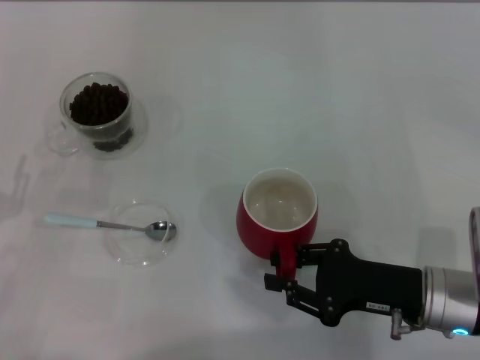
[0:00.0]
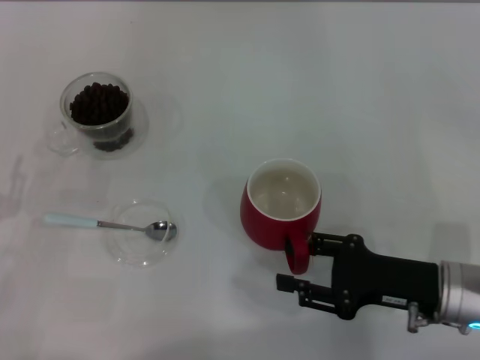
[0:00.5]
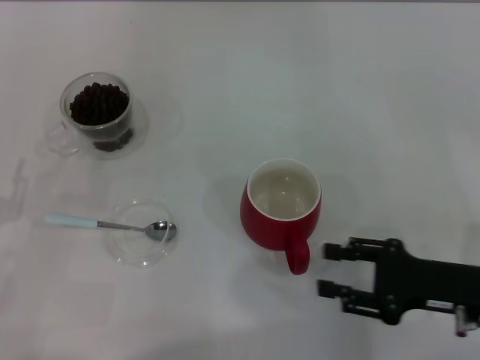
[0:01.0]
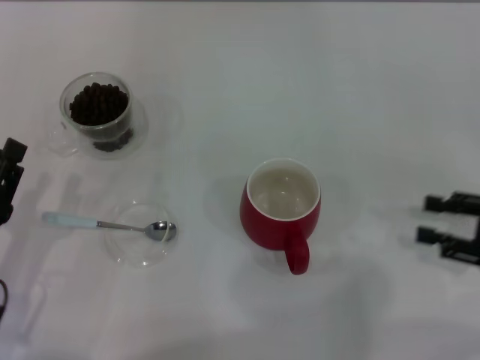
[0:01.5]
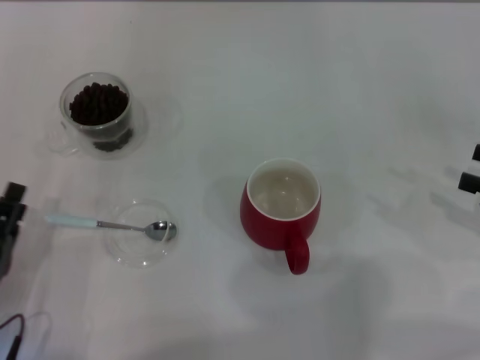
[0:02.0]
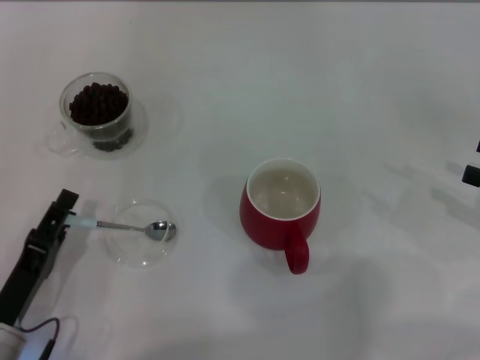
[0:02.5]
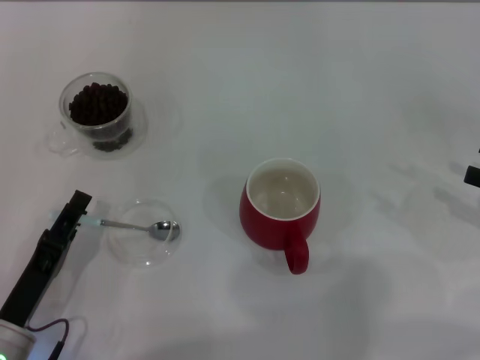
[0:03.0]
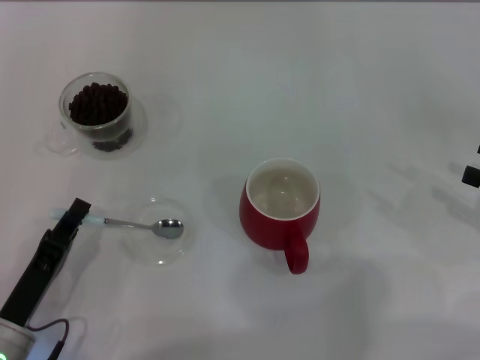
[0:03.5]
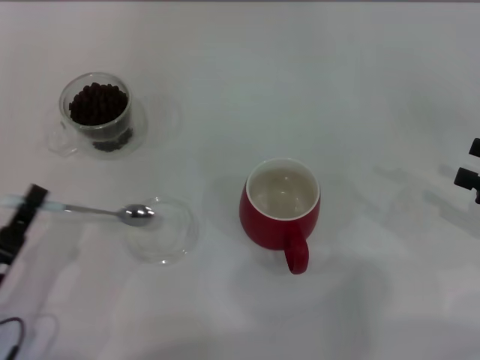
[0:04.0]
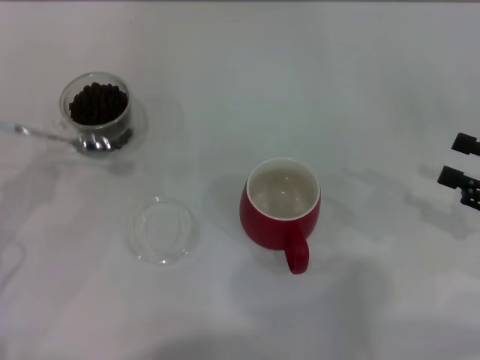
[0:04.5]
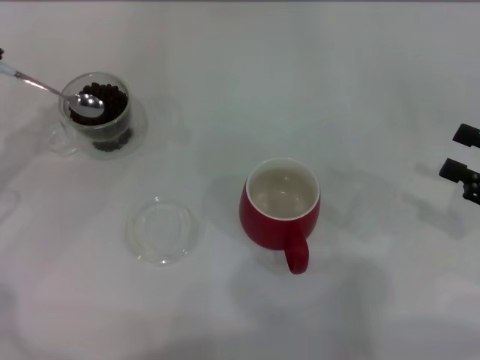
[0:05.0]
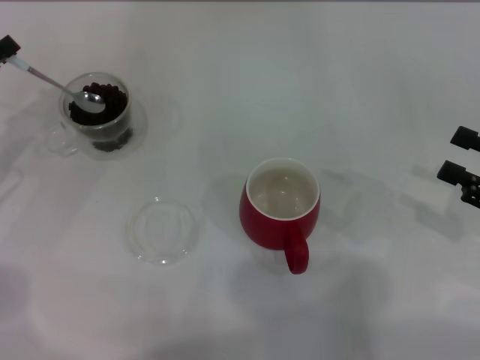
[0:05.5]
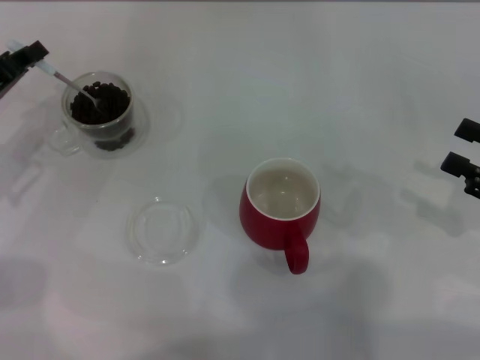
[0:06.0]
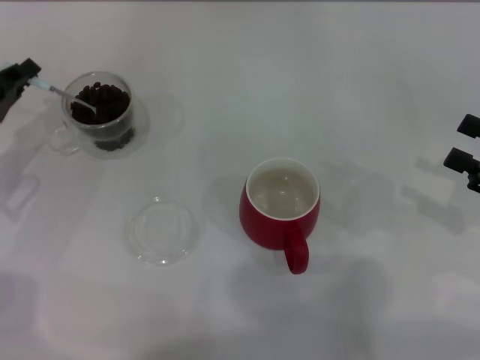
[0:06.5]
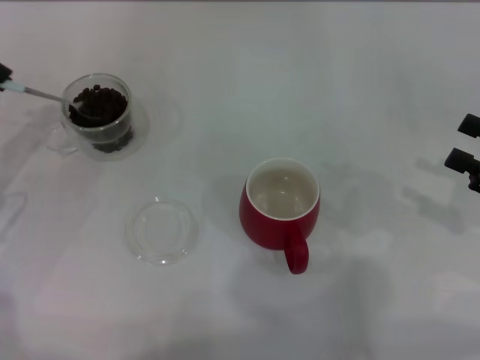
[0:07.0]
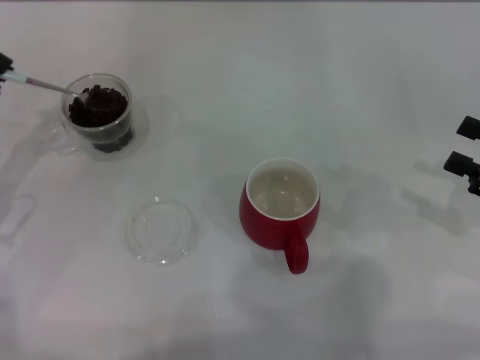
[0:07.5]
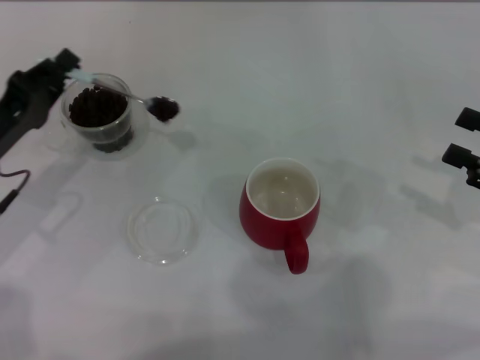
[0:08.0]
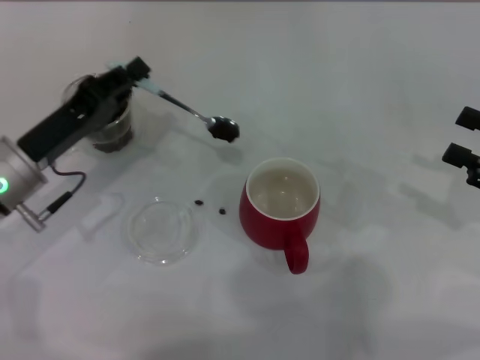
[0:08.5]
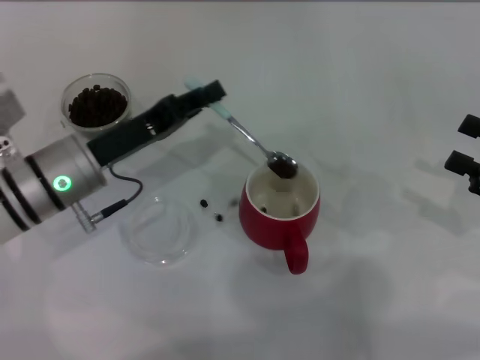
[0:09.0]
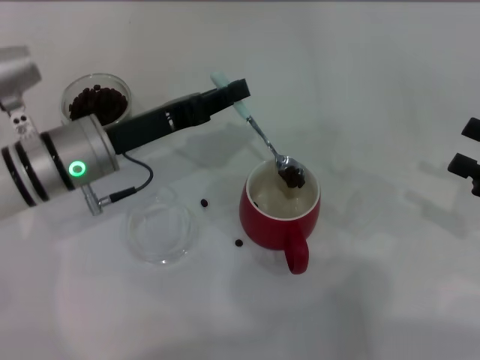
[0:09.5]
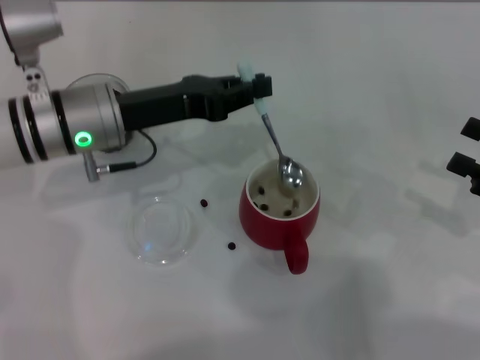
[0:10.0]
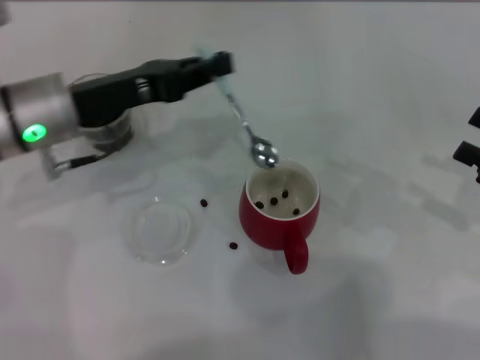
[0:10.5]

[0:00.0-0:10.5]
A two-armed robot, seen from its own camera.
Task of the whole recording: Use a blue spoon to take out the coffee beans from the glass and pour them into the red cup.
Step, 0:01.5 to 0:04.0: Pick up the spoon with the right gripper.
0:00.0 to 0:02.0: The left gripper moves to the right and backward, about 10 cm. Meanwhile the right gripper shifts roughly 20 cm to the right, and opens up.
0:02.0 to 0:04.0: The left gripper closes its fingers.
0:04.0 to 0:06.5: The left gripper goes some 20 cm forward.
0:06.5 to 0:08.5: The left gripper shifts about 10 cm to the right.
0:08.5 to 0:10.5: The left gripper travels upward by approximately 5 cm.

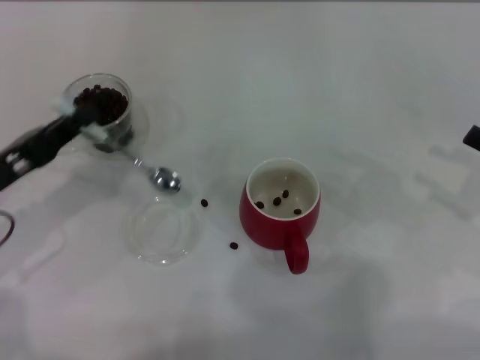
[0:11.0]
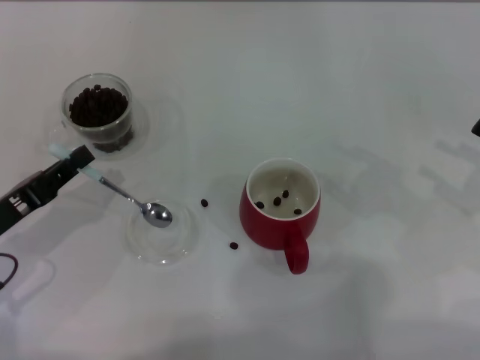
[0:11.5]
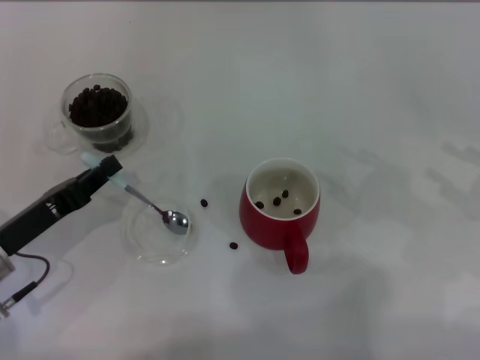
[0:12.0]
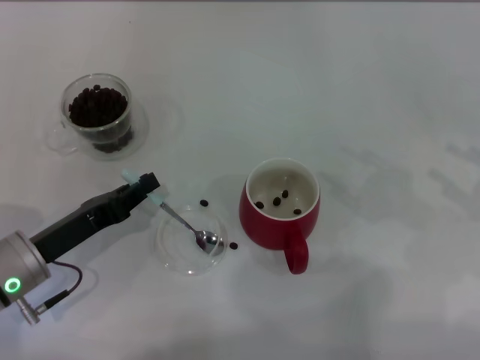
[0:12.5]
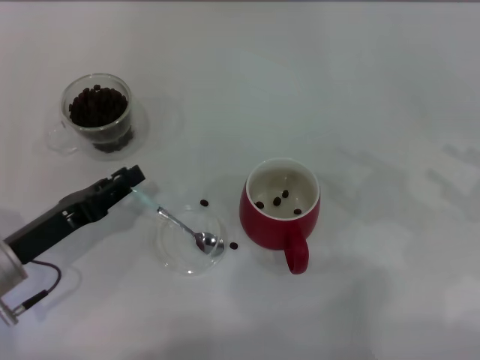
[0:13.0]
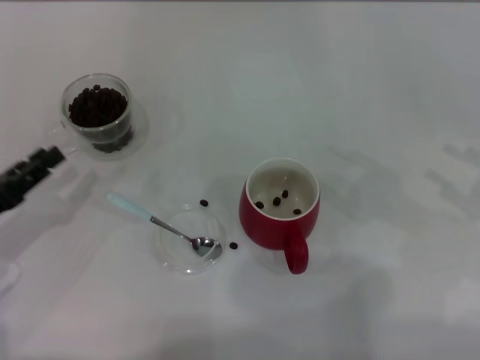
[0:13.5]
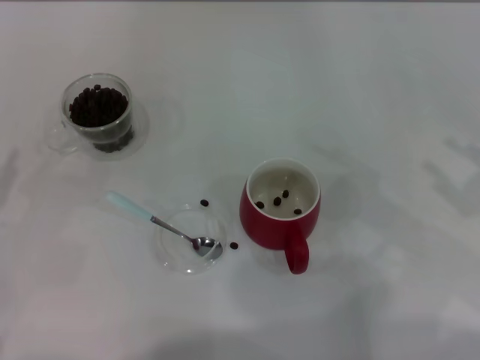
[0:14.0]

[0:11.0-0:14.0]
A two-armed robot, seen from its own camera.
Task of the whole recording: Use a blue spoon to take out the coffee beans from the glass and pour them into the red cup.
Step, 0:11.0 to 0:13.0: Place the spoon back in its original place with the right gripper.
0:11.0 to 0:12.5: The left gripper is displaced downward by some 5 cm.
0:12.5 to 0:14.0: The left gripper goes roughly 15 cm to the left and upward, and opens.

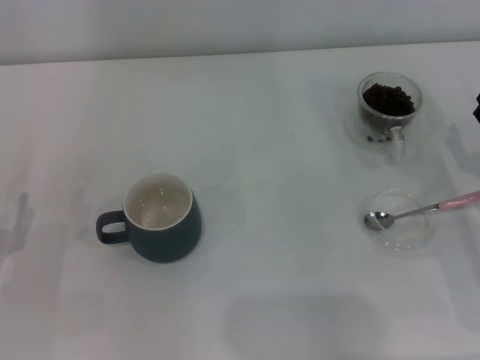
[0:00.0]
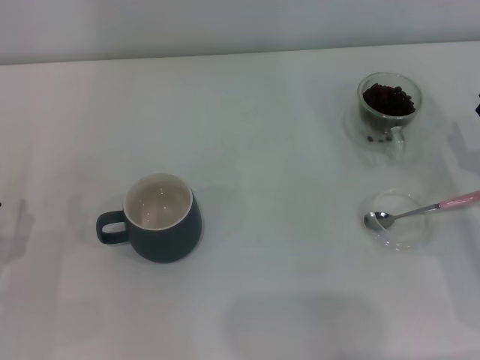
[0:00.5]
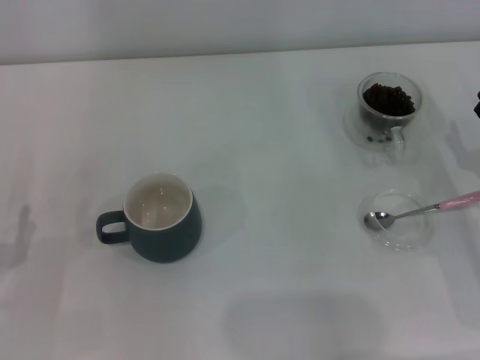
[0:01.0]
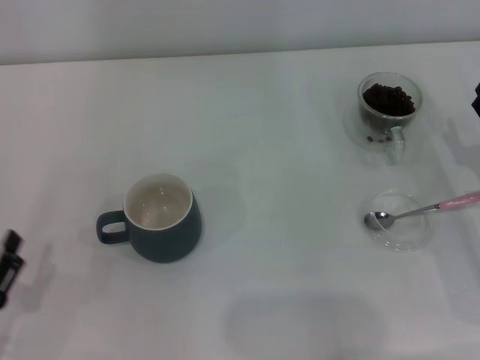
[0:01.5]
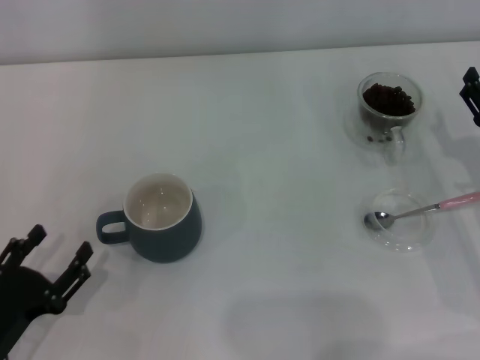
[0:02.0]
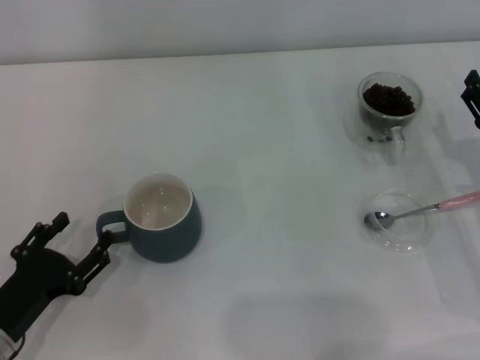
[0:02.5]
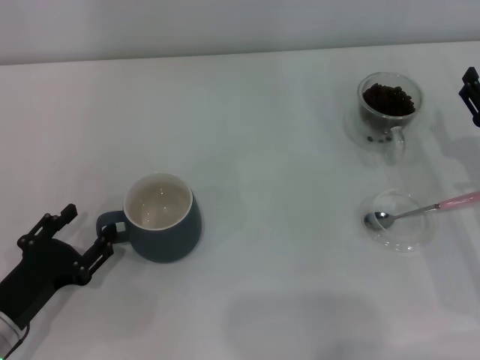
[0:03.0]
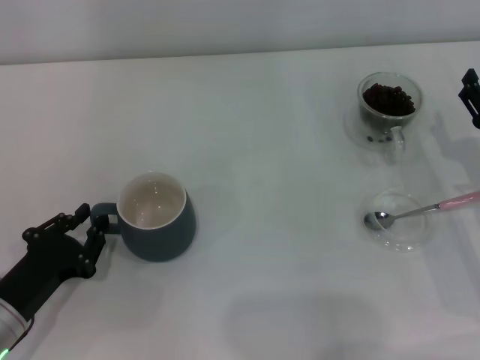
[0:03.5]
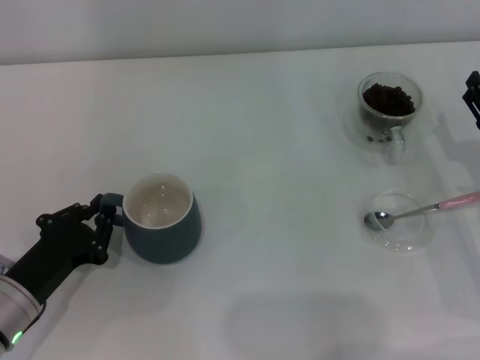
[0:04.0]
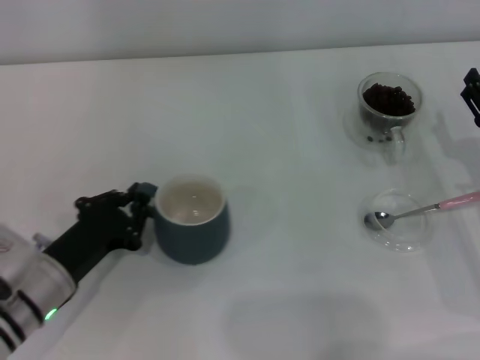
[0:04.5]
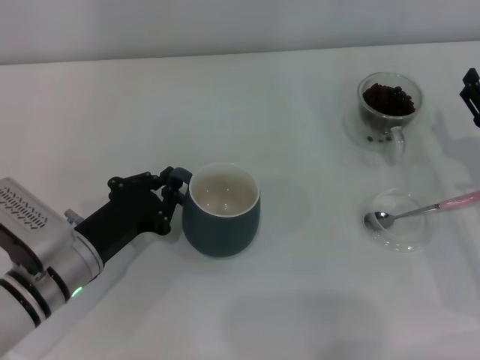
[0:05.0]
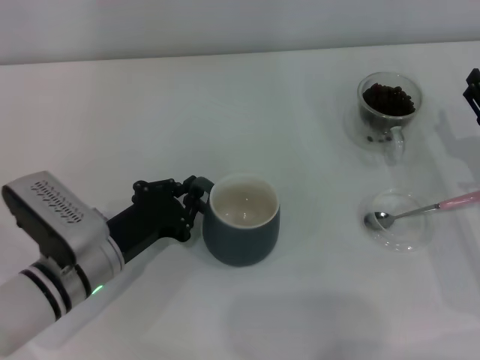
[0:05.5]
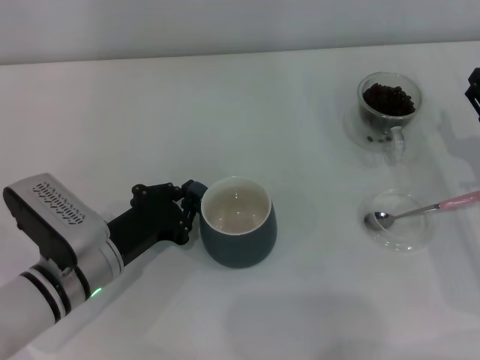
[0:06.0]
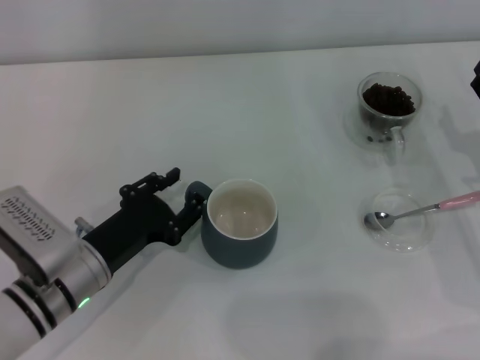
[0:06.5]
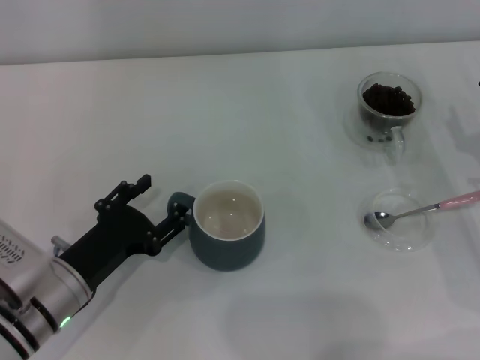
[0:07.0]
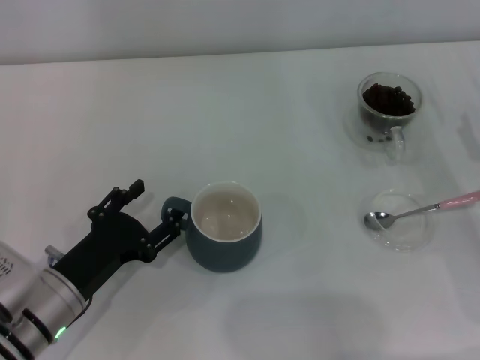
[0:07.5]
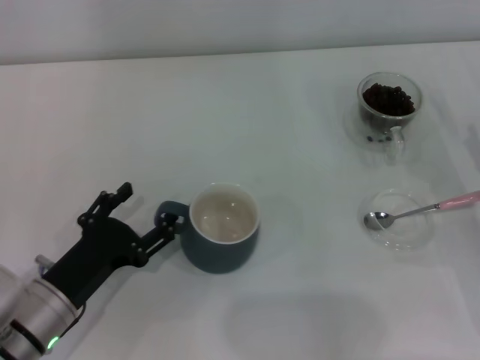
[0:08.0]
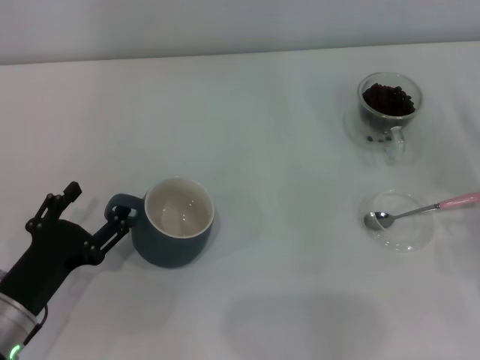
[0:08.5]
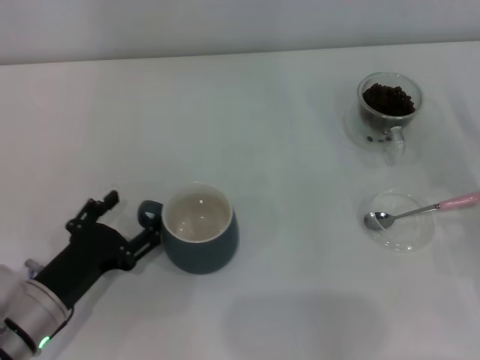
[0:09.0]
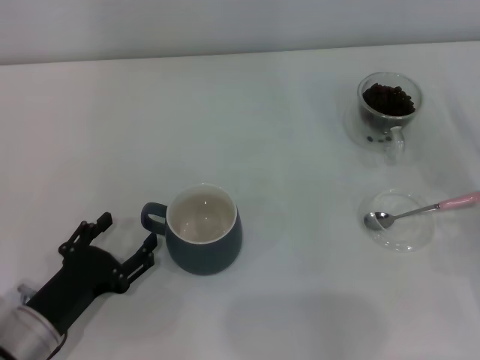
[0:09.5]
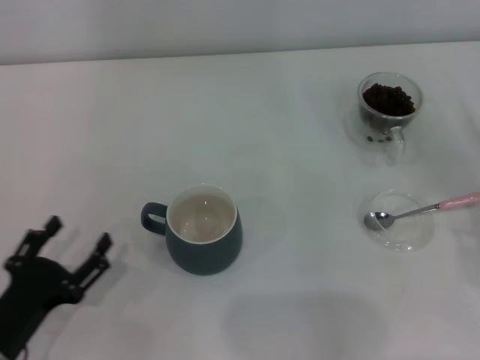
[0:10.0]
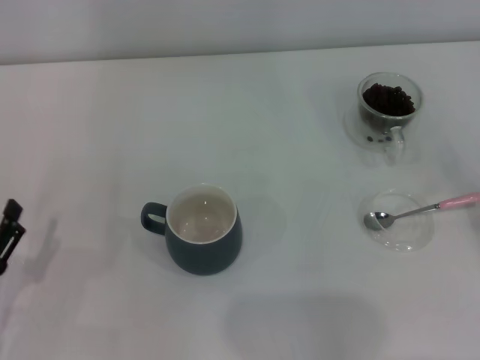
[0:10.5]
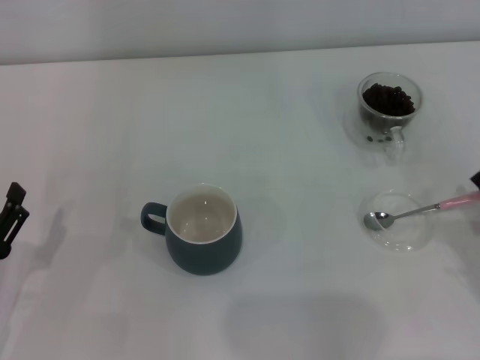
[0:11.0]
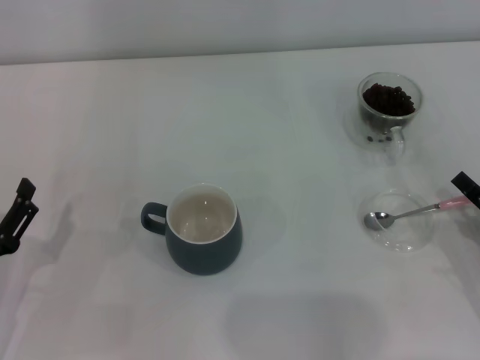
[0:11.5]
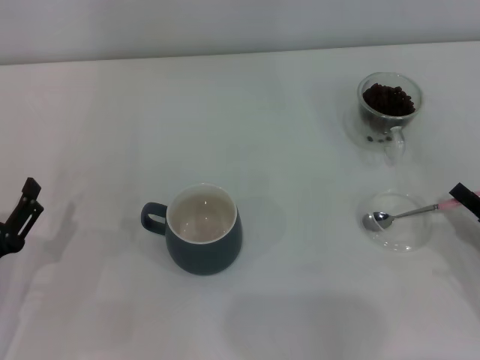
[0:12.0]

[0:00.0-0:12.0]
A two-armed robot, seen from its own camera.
Task of the whole recording: Use a pink spoon to take out the coffee beans from the glass and pour them into the gray cup.
Step, 0:00.0 to 0:09.5: Move the cup to the center of view with the left gripper.
0:00.0 to 0:02.0: The left gripper shifts by roughly 5 cm.
0:02.0 to 0:04.0: The left gripper moves forward, roughly 5 cm, and closes.
0:04.0 to 0:06.0: The left gripper travels to the right by about 10 cm.
0:06.0 to 0:08.0: The left gripper heads backward, covering roughly 5 cm, and opens its fingers.
0:08.0 to 0:10.0: The left gripper moves roughly 5 cm.
0:10.0 to 0:12.0: The right gripper closes up.
